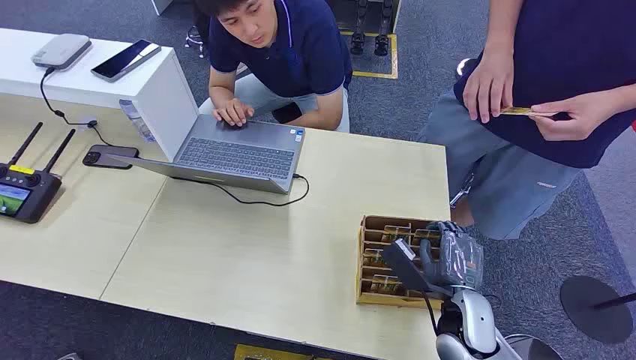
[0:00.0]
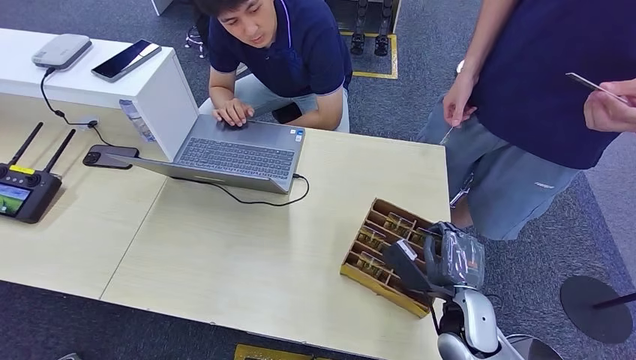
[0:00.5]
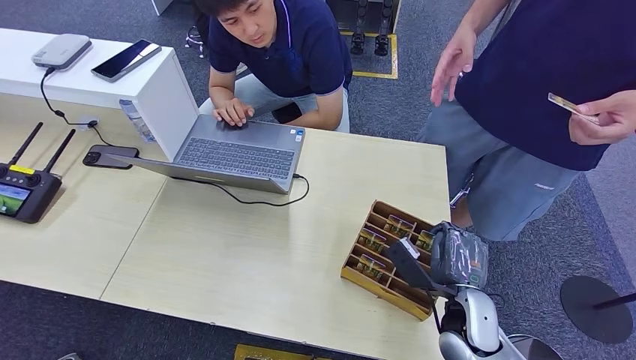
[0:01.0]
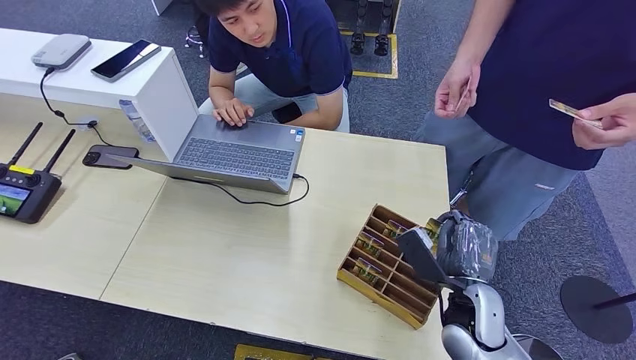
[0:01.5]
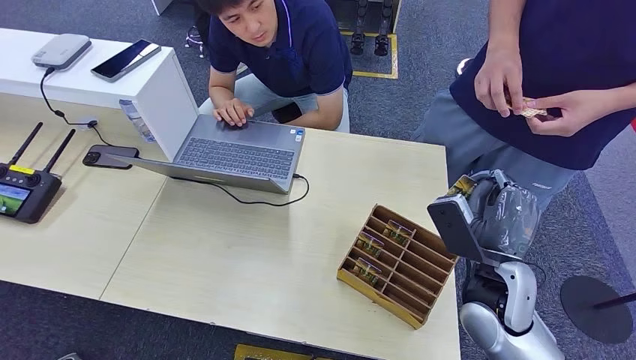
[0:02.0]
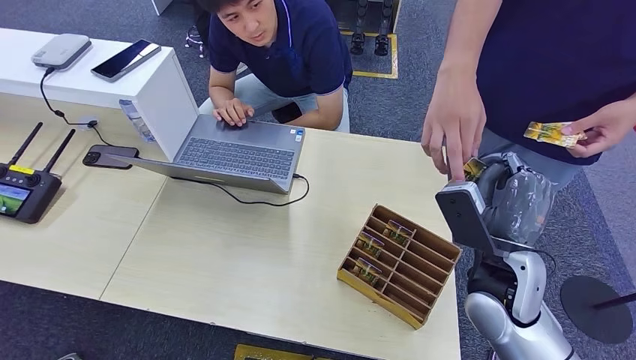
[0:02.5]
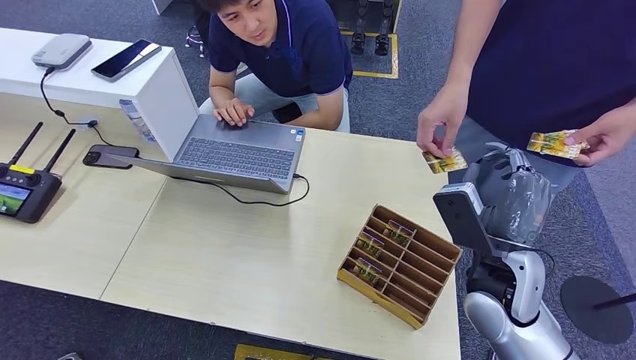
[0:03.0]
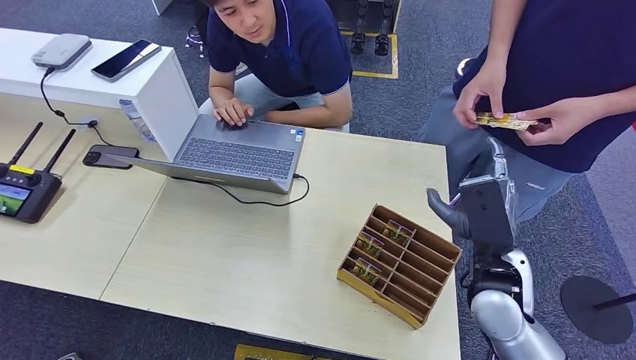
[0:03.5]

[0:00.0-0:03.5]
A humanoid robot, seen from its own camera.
Step, 0:00.0 to 0:02.0: Pick up the room card from the card holder.
Step, 0:02.5 to 0:03.5: Hand the room card to the target.
0:02.0 to 0:03.5: The right hand goes approximately 5 cm downward.
